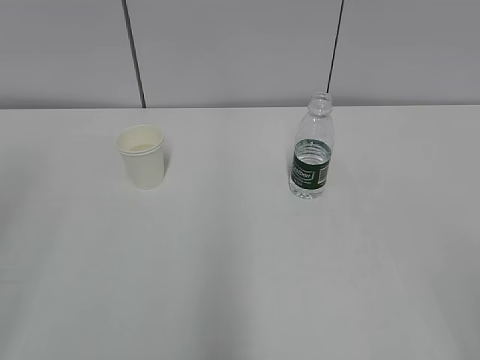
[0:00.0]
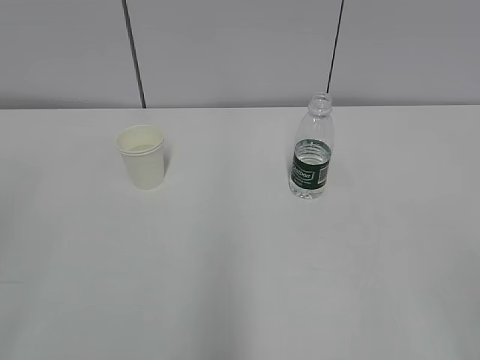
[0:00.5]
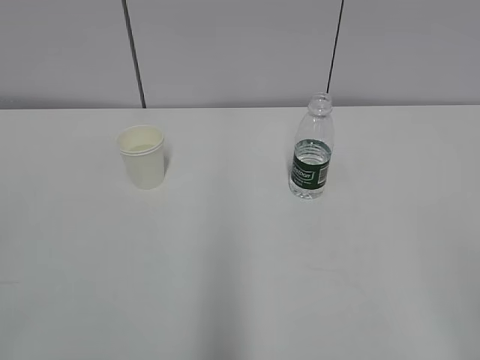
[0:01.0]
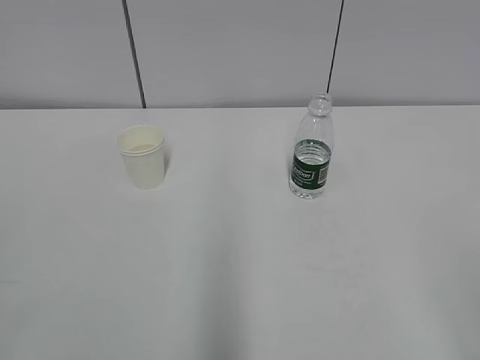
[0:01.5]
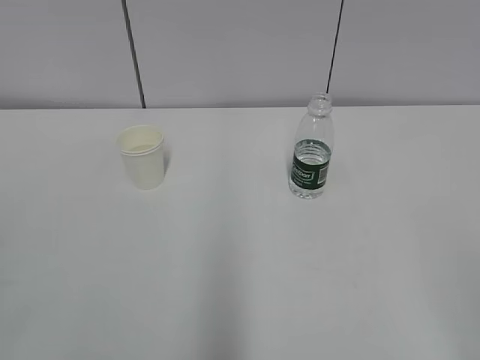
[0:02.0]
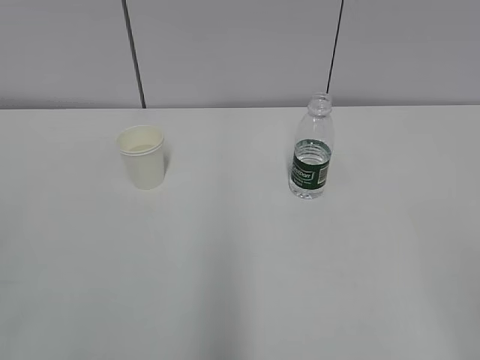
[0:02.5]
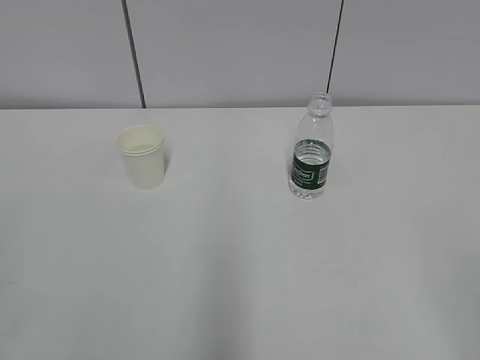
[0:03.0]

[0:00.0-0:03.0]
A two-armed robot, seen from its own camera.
0:01.5 to 0:03.0: Both grippers stay about where they are.

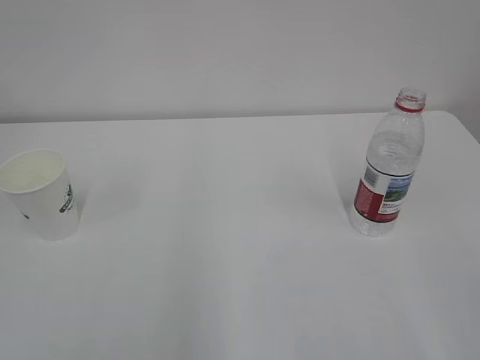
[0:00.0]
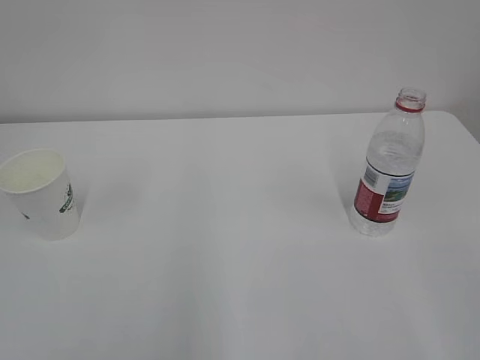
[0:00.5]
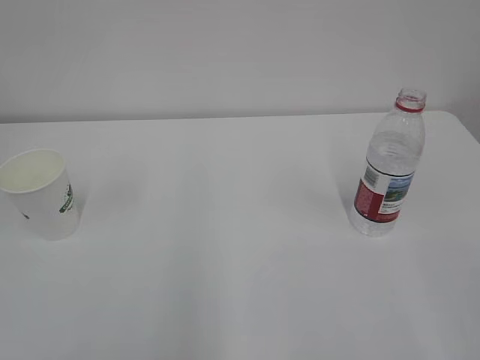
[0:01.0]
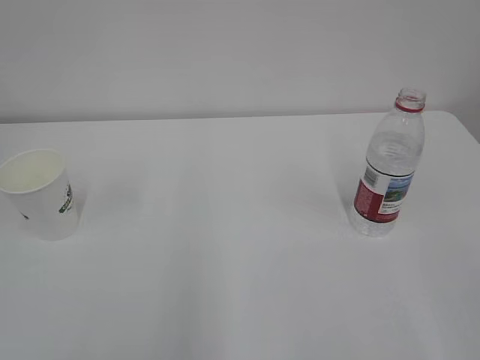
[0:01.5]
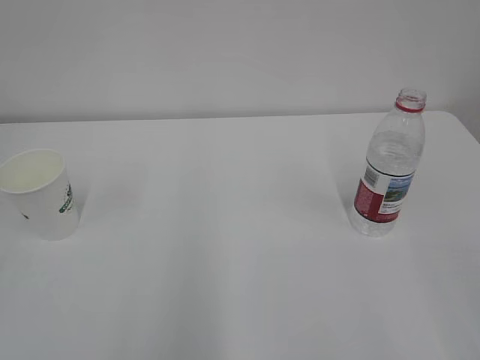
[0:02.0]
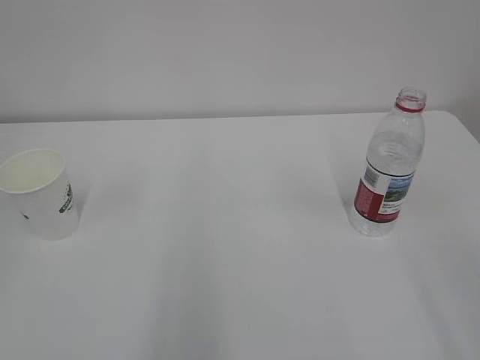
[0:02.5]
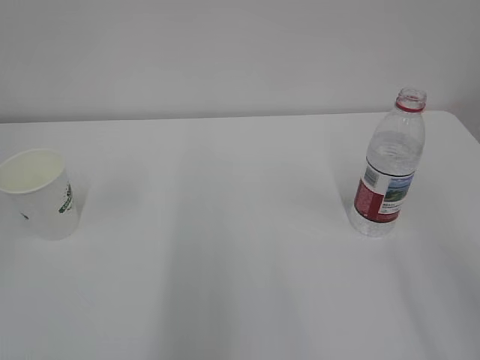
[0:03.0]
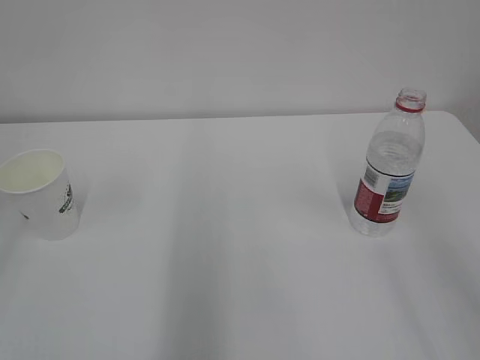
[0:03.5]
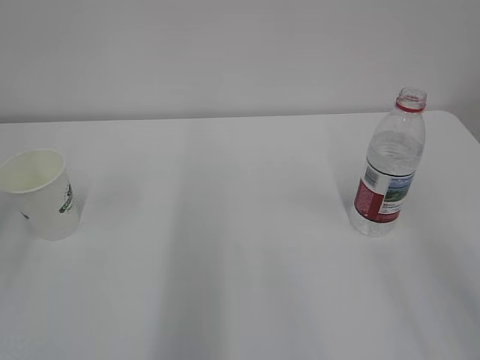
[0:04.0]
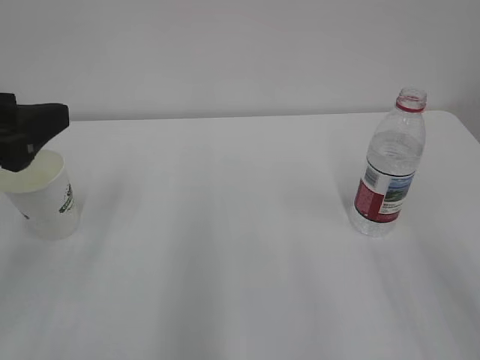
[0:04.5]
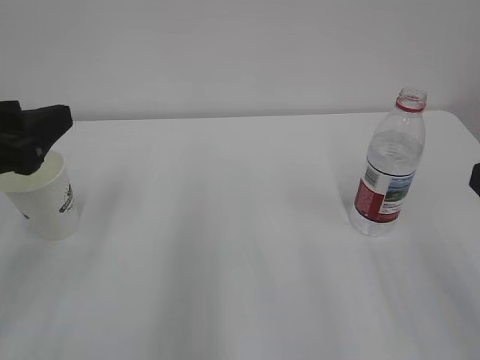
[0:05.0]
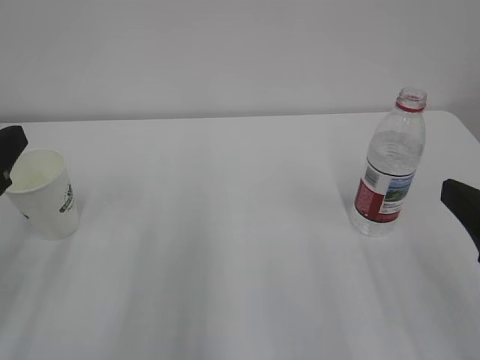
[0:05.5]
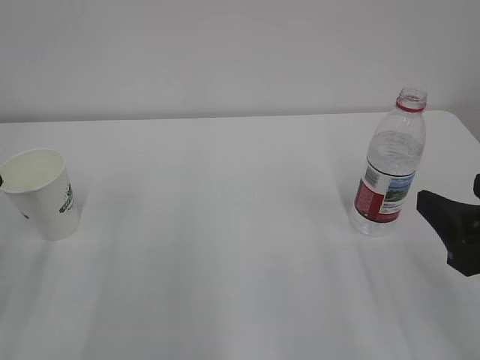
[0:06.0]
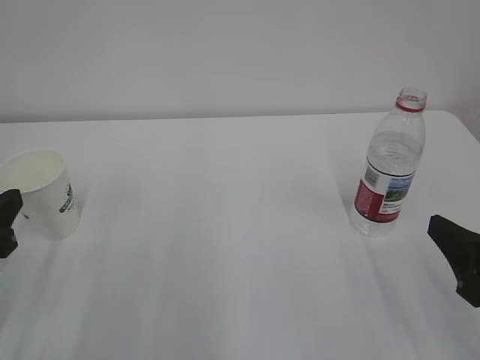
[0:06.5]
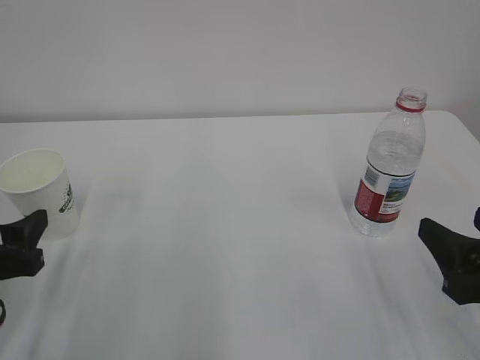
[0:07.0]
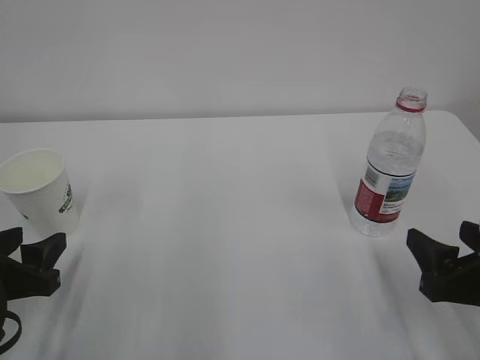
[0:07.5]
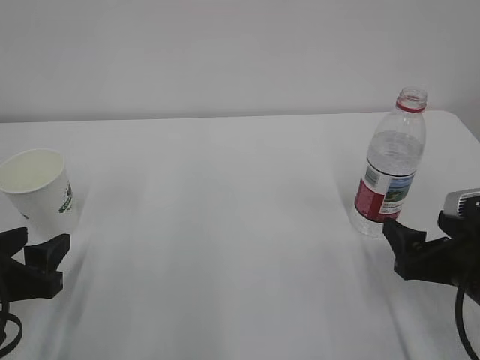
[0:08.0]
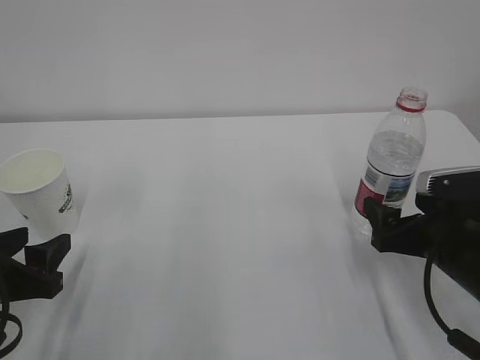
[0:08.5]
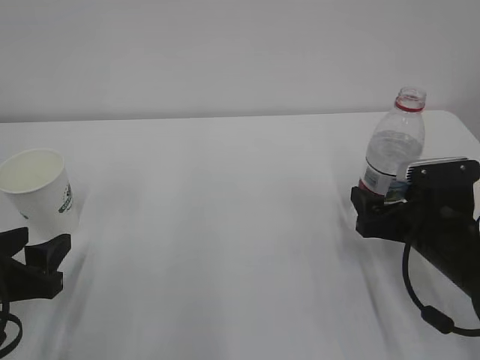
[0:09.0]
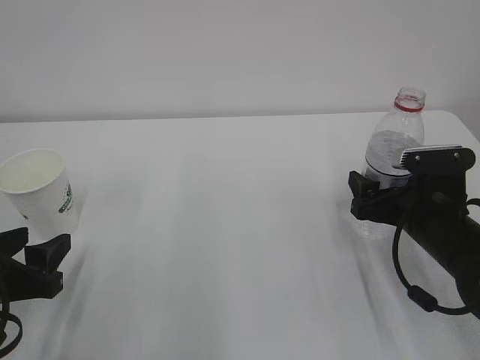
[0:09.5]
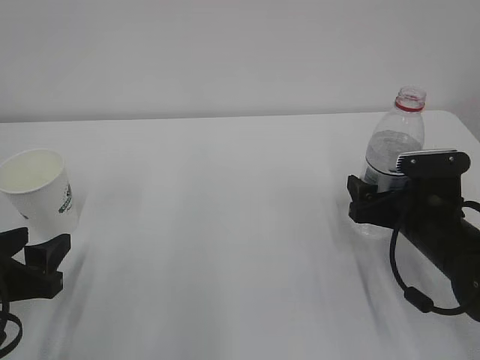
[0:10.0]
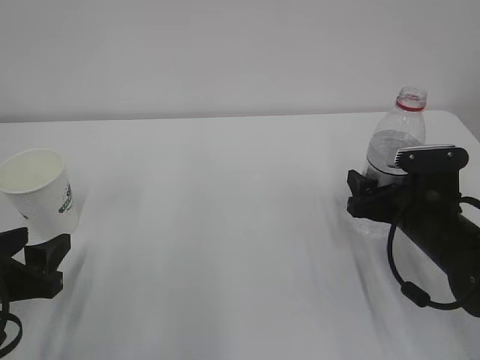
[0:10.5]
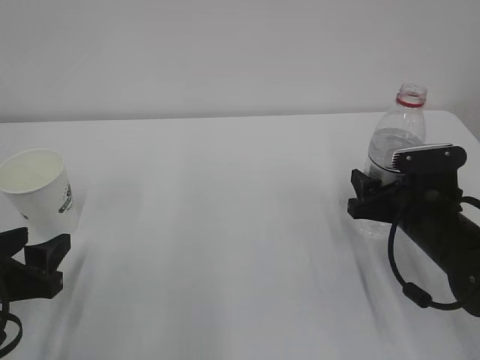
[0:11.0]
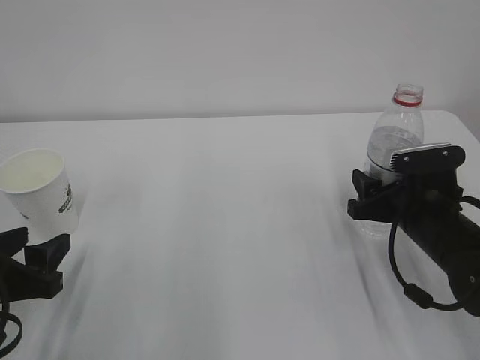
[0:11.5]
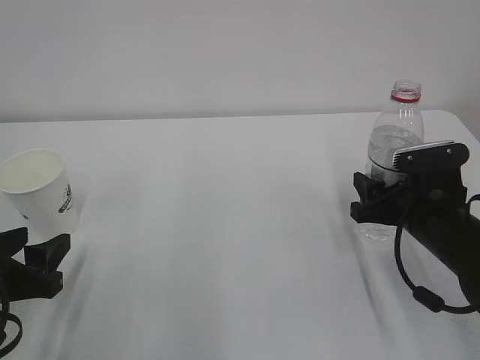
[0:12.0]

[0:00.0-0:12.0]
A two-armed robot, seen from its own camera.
0:04.0 to 0:06.0: The right gripper is displaced downward and forward by some 15 cm.
0:06.0 to 0:08.0: The grippers both shift downward by some 10 cm. The right gripper opens up.
0:08.0 to 0:10.0: The right gripper heads forward, covering some 10 cm.
0:10.0 to 0:12.0: The right gripper closes.

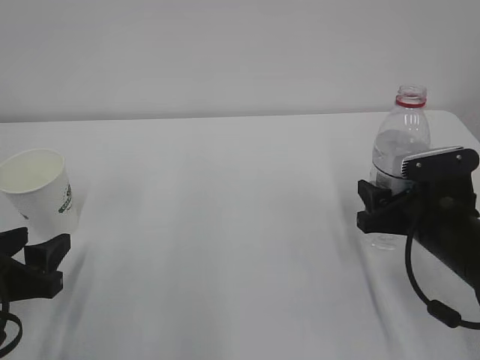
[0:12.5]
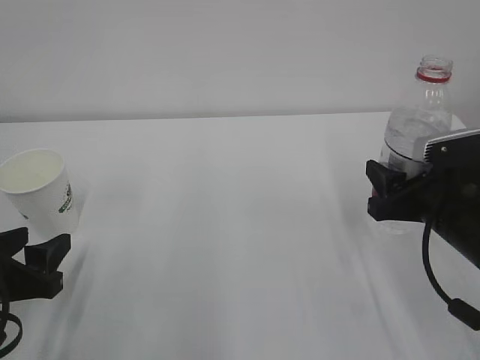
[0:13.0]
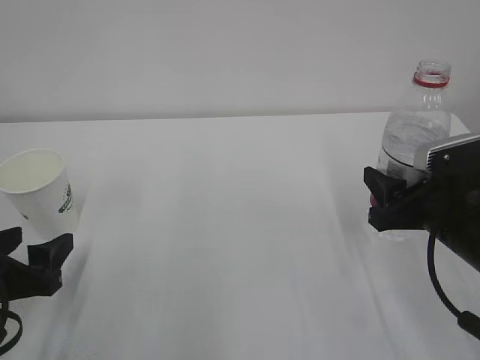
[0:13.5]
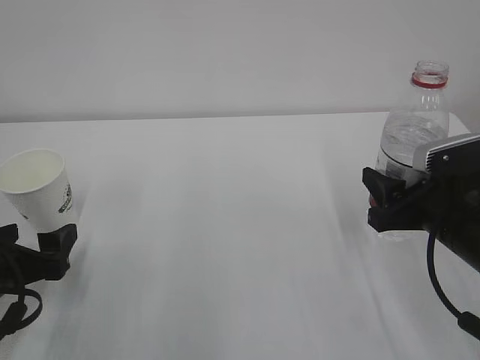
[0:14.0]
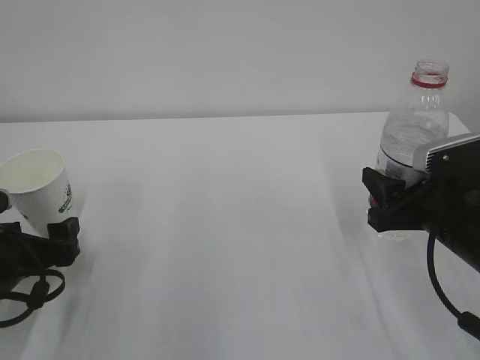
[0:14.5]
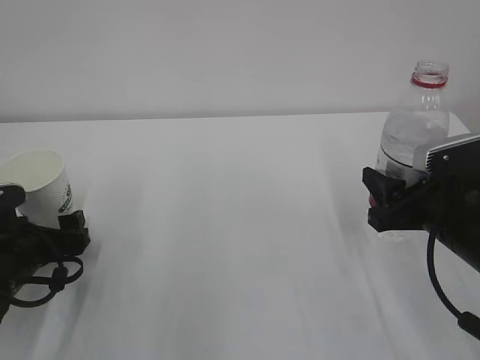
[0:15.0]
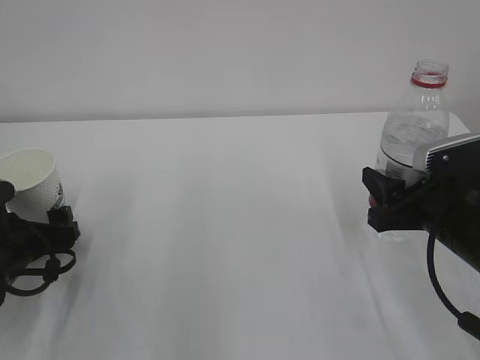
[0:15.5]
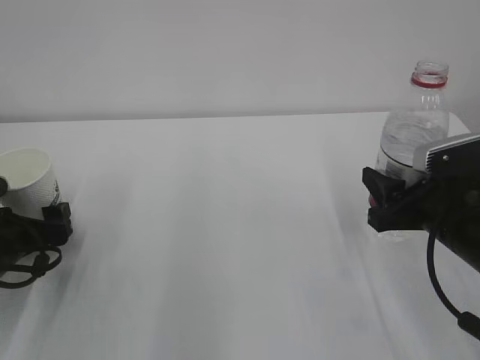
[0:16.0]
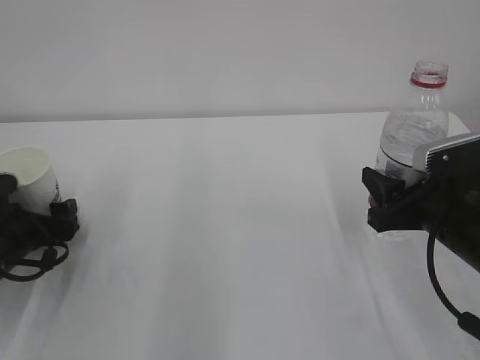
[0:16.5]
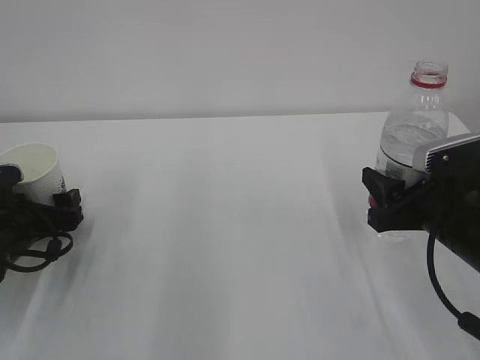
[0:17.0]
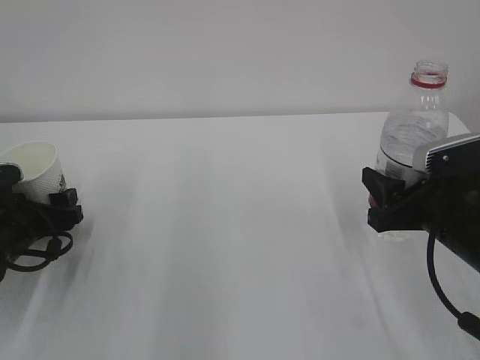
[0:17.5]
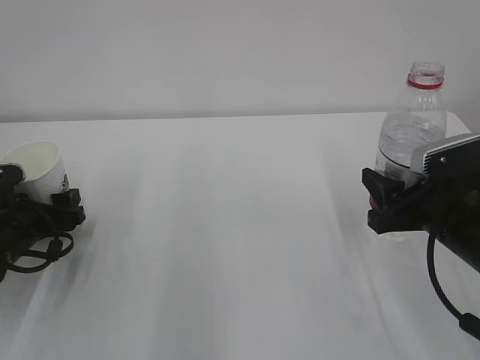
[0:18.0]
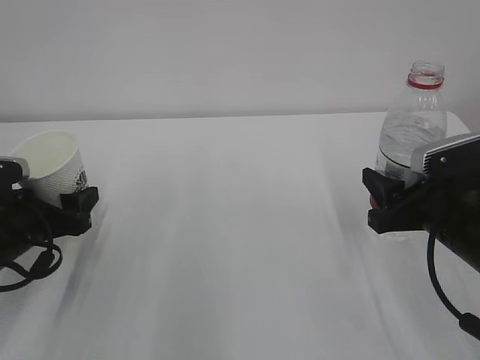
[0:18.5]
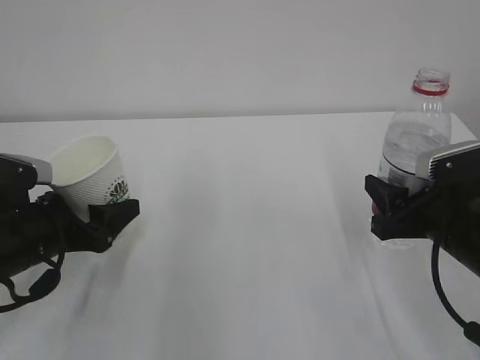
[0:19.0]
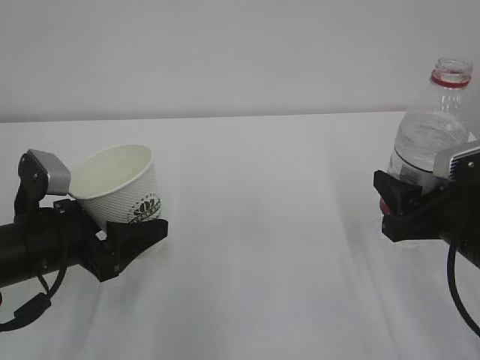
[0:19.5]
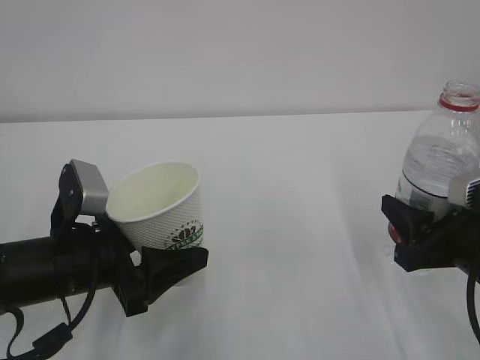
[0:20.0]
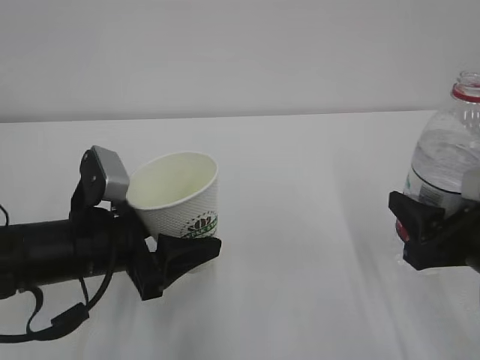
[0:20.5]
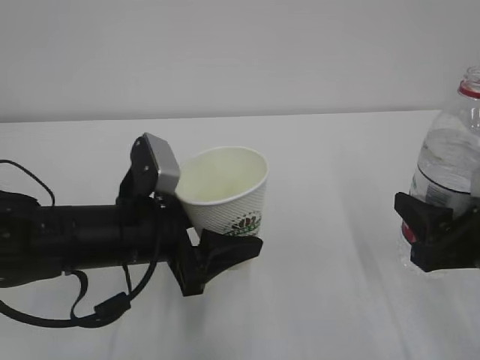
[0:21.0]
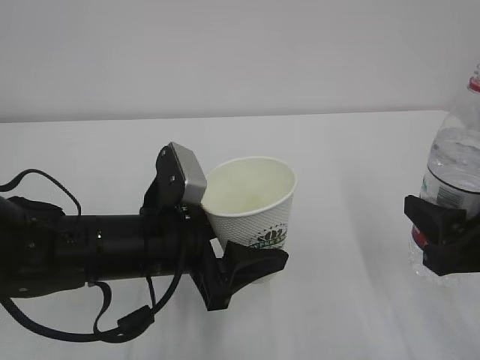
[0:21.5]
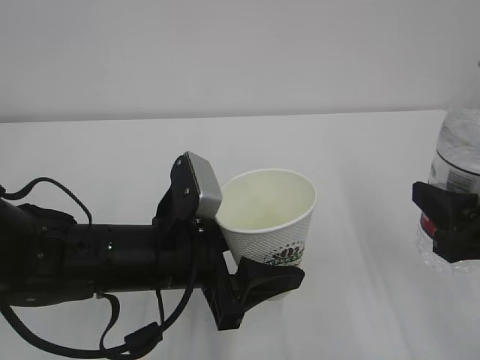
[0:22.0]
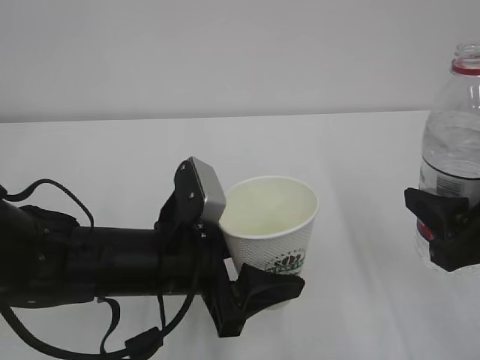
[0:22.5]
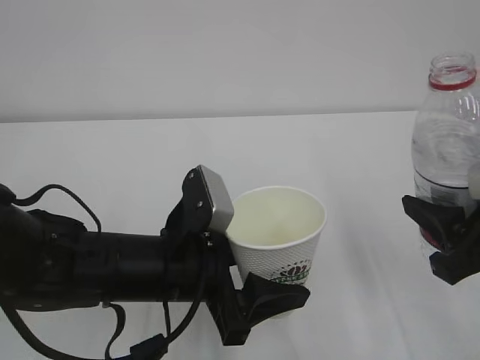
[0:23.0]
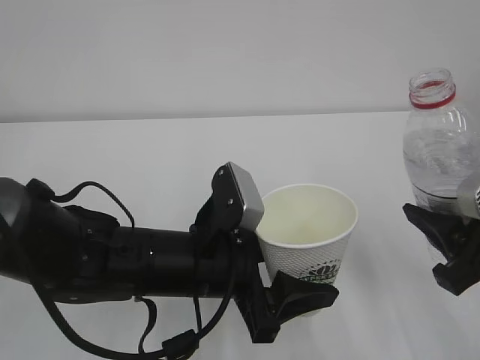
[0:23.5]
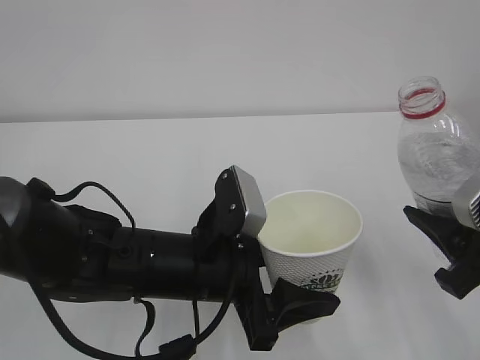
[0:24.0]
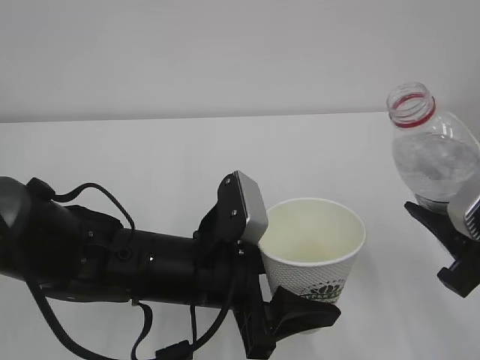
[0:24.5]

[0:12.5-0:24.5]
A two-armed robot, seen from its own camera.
0:12.5 to 0:14.5: The left gripper ends up about 5 cm from where it was, and opens up.
0:14.5 to 0:16.5: The left gripper shifts roughly 5 cm forward.
0:16.5 to 0:18.5: The left gripper closes.
0:18.5 to 0:20.5: The left gripper is displaced to the right by some 10 cm; the right gripper shifts approximately 5 cm backward.
0:20.5 to 0:22.5: The right gripper changes place by some 5 cm, while the left gripper goes roughly 10 cm to the right.
